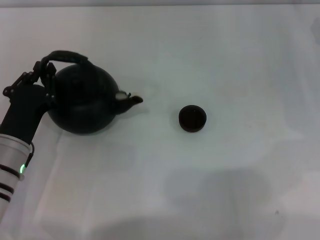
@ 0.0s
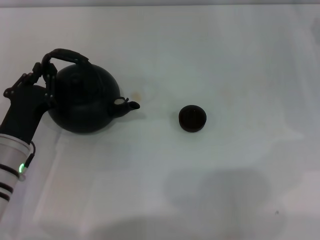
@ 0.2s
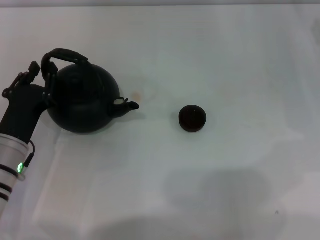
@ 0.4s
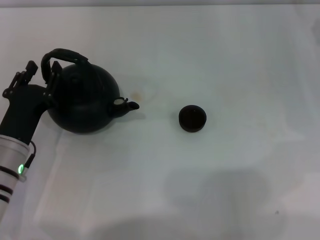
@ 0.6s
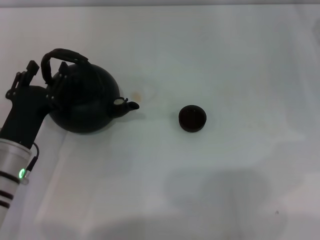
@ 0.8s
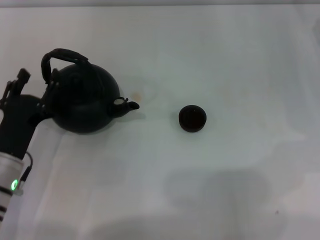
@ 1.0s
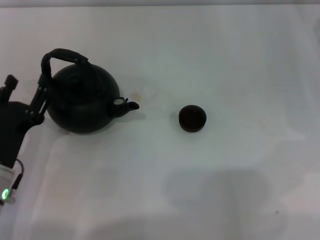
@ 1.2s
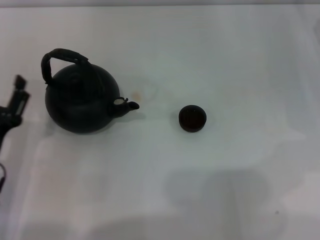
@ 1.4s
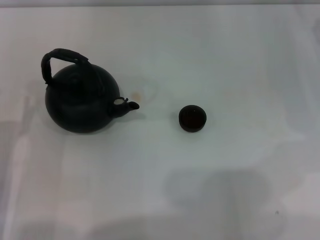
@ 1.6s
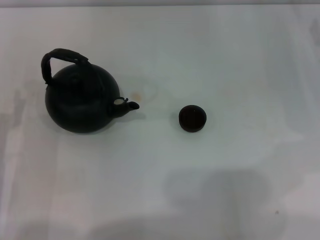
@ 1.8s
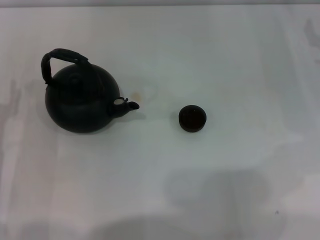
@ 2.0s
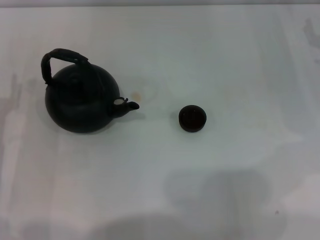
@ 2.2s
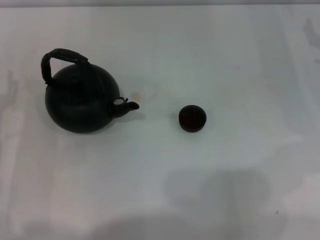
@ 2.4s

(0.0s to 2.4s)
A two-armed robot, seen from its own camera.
Task of the whole recording: Grasp the handle of the teapot with one hand and pour tea into the teacup.
0.0s - 1.2s: The left gripper opens its fingers.
1.2s - 2.4s: The left gripper moves to the left, some 5 cm.
